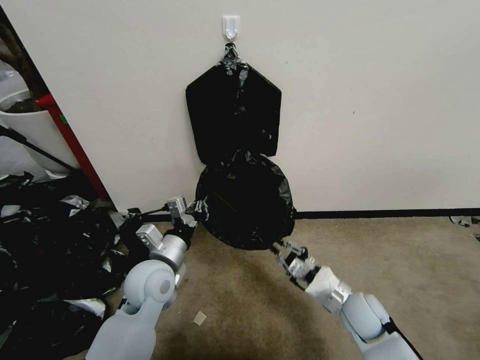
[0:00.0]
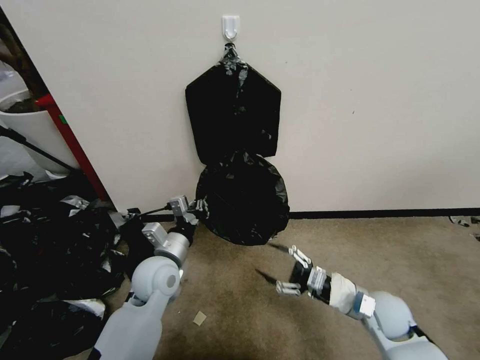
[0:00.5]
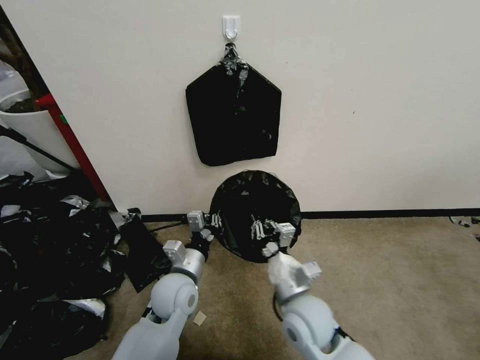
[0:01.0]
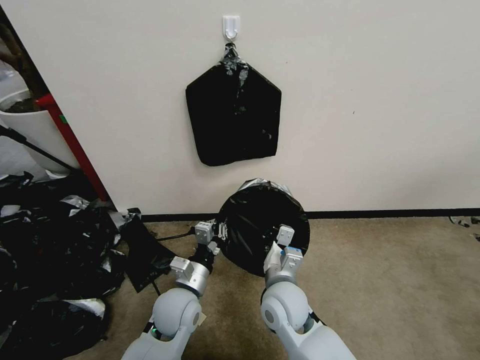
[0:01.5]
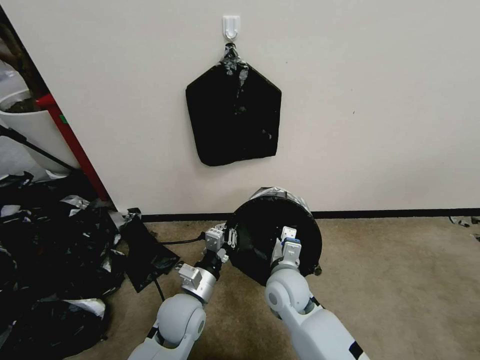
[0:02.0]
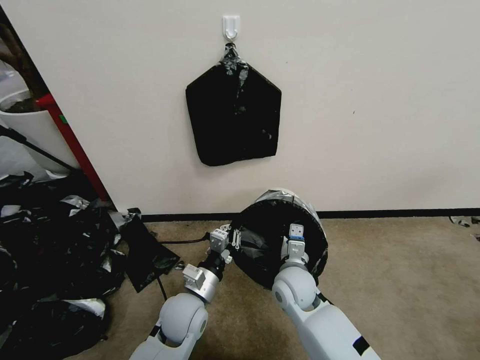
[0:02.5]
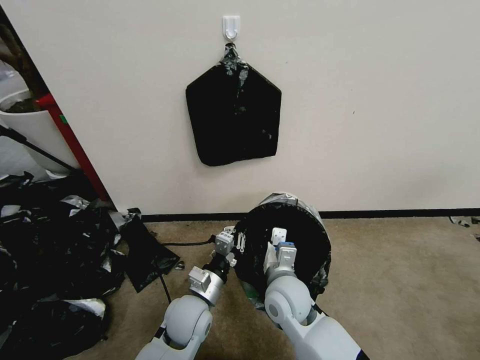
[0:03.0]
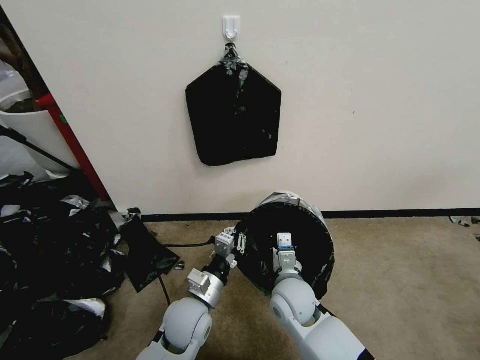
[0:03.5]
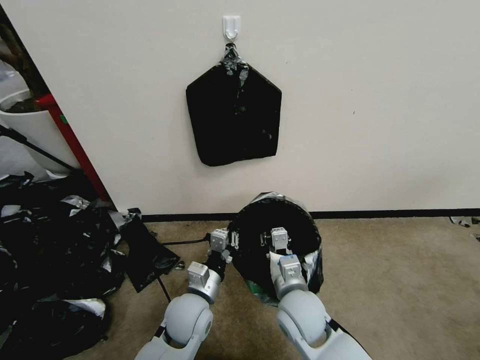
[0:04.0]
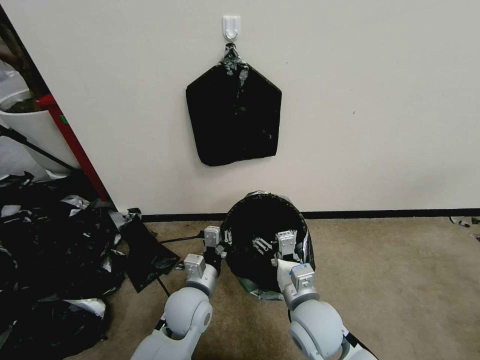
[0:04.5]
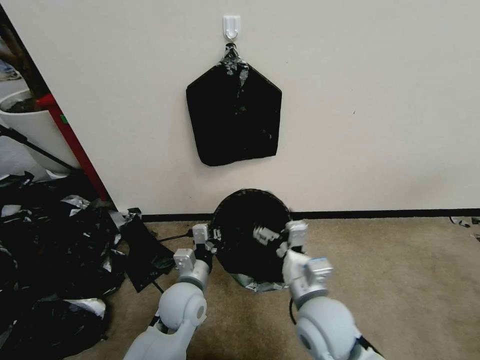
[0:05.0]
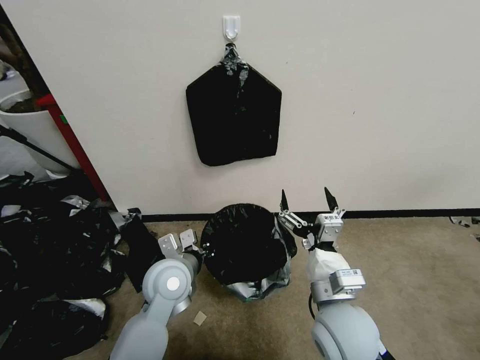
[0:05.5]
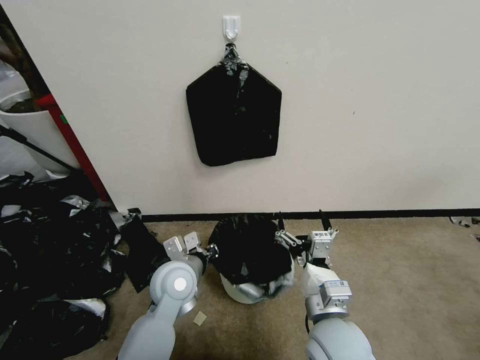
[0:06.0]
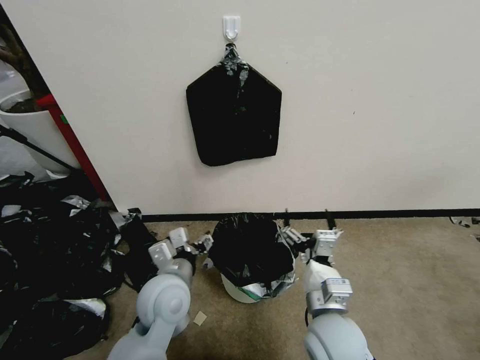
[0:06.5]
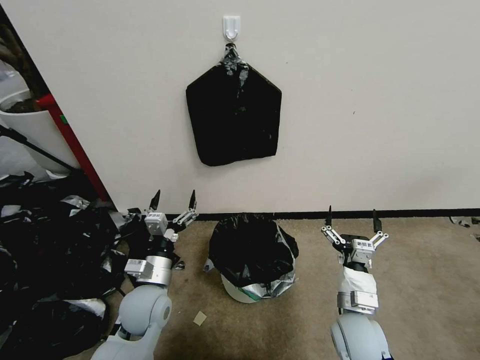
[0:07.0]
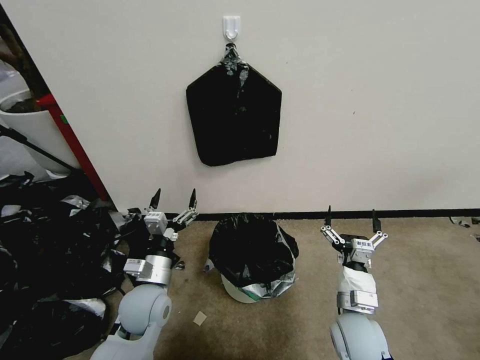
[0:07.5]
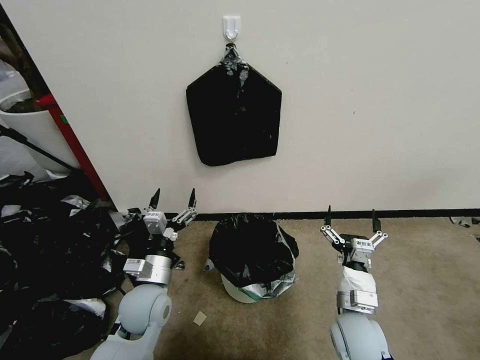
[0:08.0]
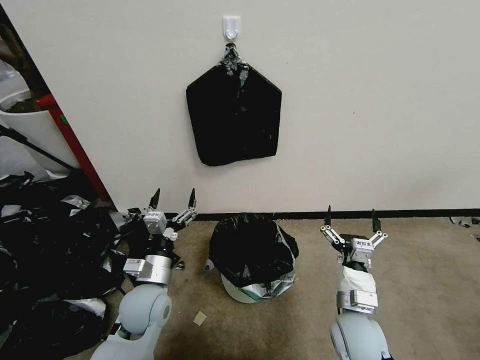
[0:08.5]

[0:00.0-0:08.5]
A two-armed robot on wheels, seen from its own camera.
Task of the whole recording: Place a trash bag onto the trash bin.
0:00.0 to 0:02.0: The left gripper heads downward and to the right, covering roughly 10 cm. Meanwhile the right gripper moves to the left, some 20 cm, and opens, then closes again.
0:04.0 to 0:06.5: The left gripper shifts approximately 10 cm upward, and opens; the right gripper goes about 10 cm backward and upward, and opens its fingers.
0:06.5 to 0:08.5: The left gripper is displaced downward and to the left by approximately 10 cm. Meanwhile the right gripper heads to the right and downward, covering some 10 cm.
